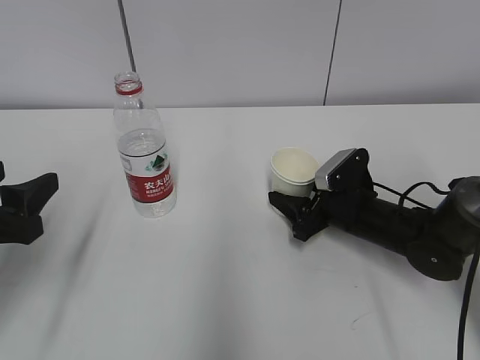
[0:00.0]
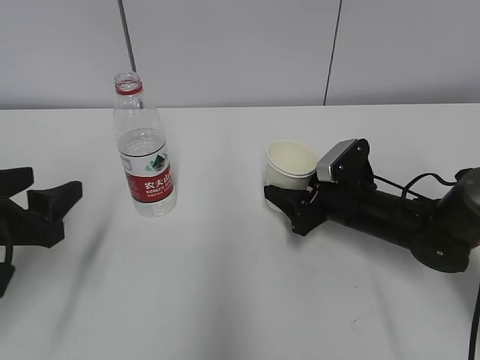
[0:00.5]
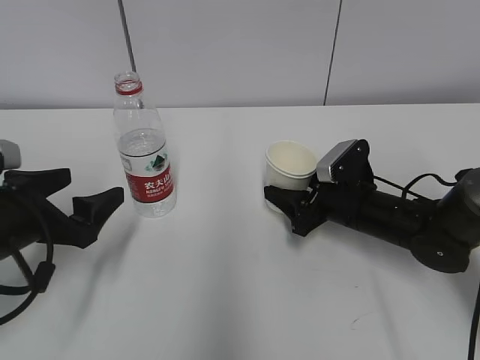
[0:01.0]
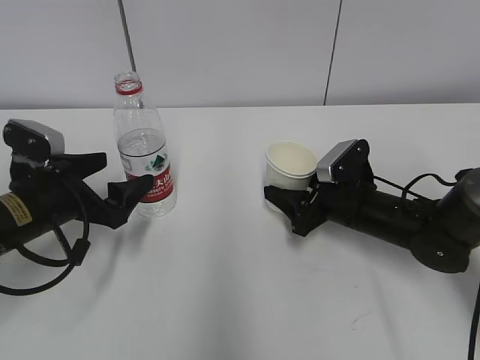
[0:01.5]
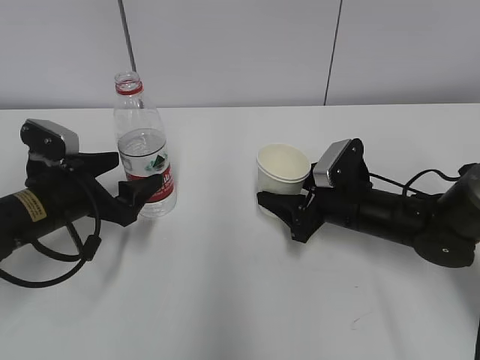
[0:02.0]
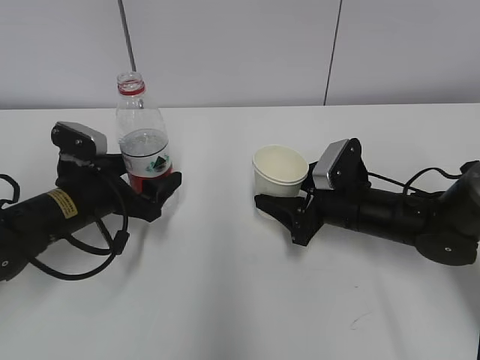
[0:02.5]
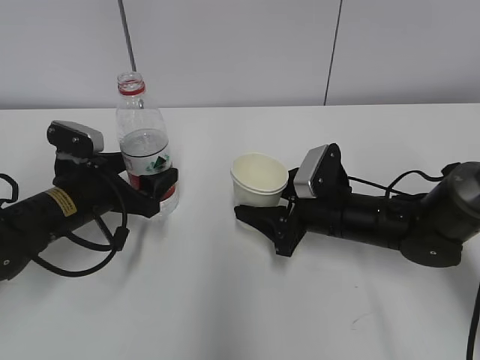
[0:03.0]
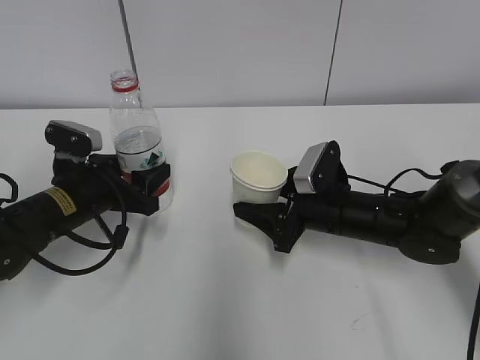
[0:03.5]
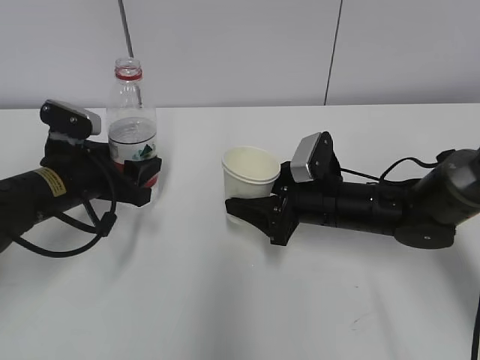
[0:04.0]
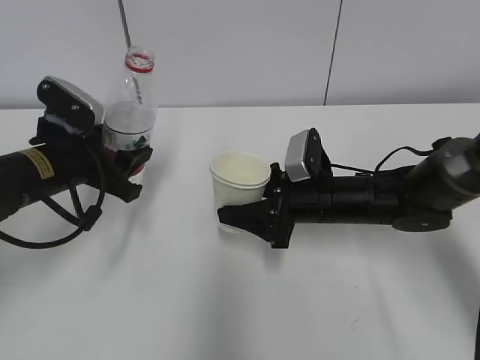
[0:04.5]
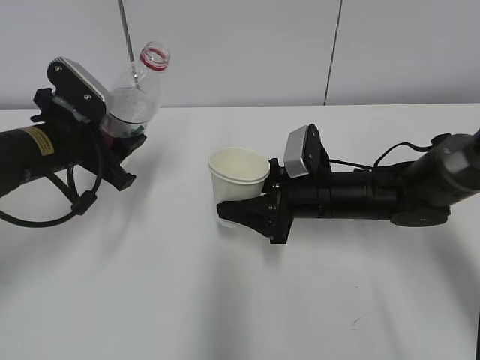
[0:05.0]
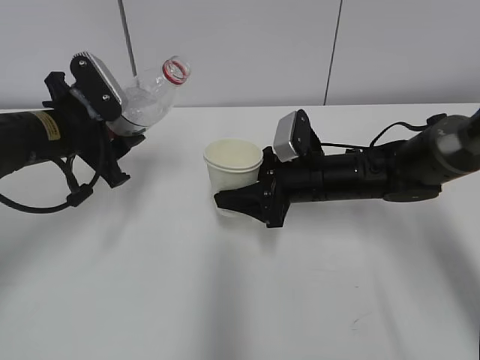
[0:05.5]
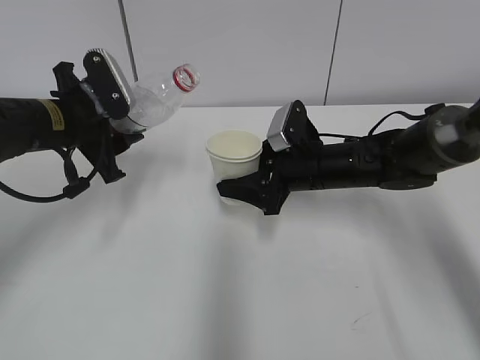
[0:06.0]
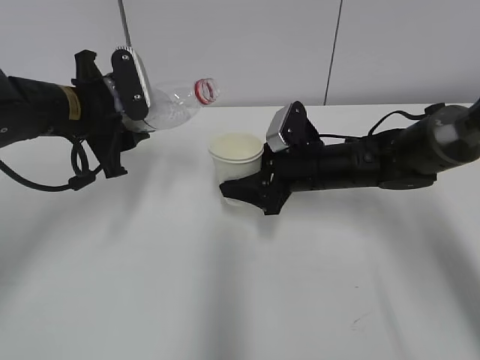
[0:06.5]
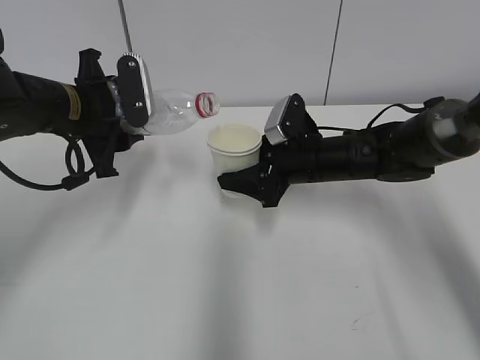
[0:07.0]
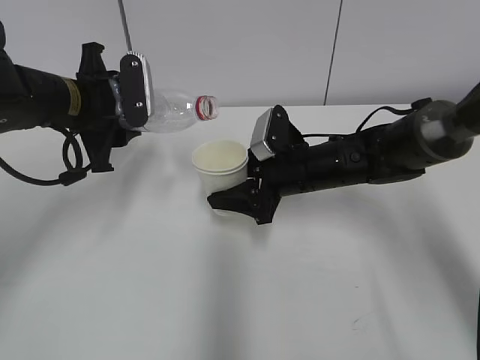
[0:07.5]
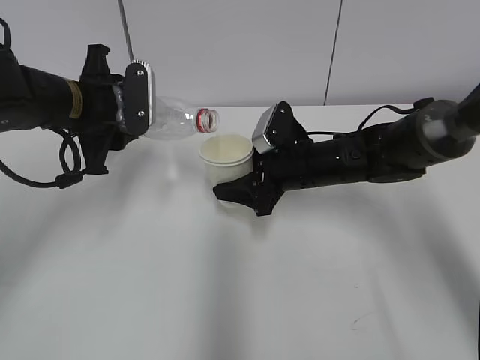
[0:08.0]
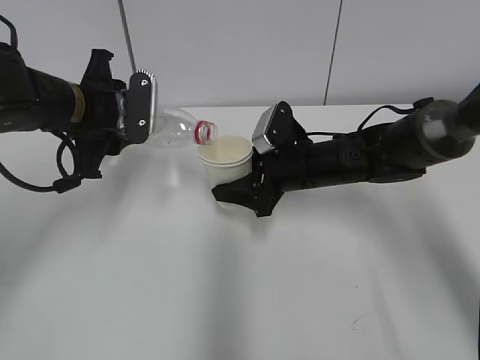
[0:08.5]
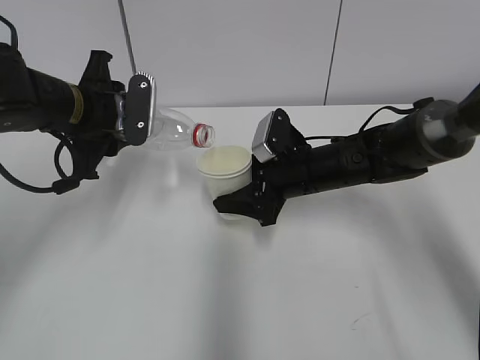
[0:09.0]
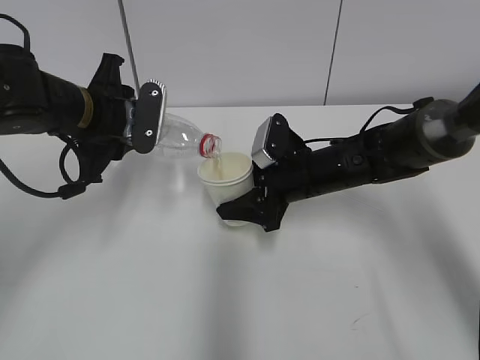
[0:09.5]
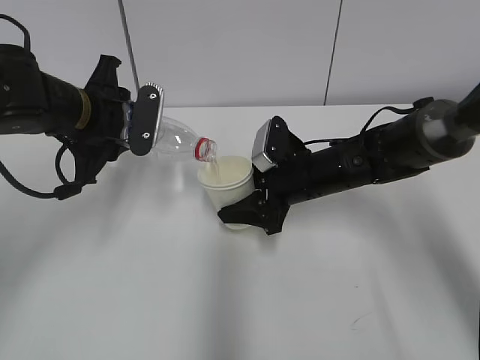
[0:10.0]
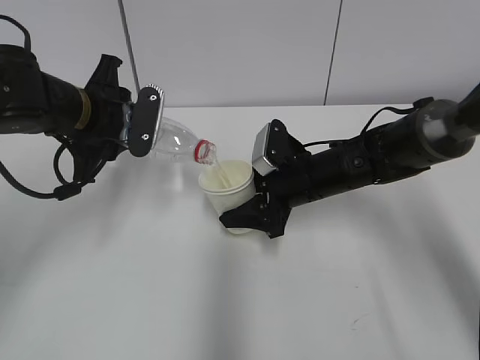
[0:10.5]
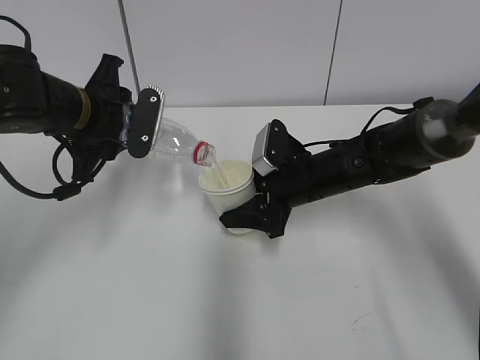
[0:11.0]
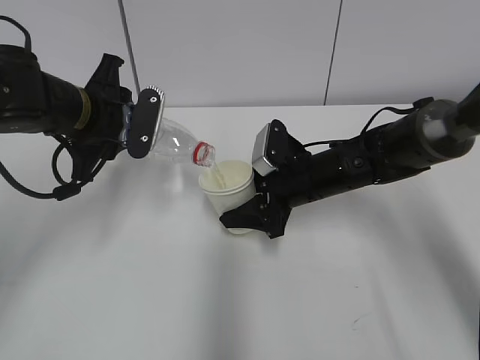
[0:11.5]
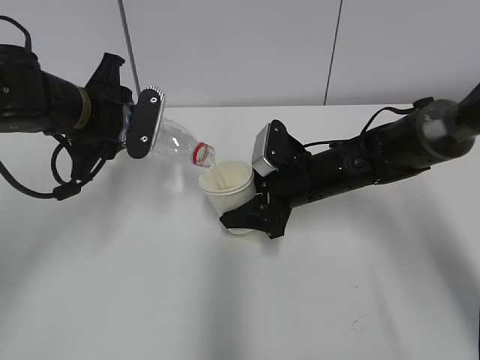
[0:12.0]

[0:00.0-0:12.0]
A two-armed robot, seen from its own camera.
Step, 0:01.5 to 0:05.5: Lift the paper cup with the right hand.
Step, 0:06.0 to 0:09.5: Fill water with the right hand.
Step, 0:06.0 to 0:09.5: Pour water with the left hand.
Step, 0:10.0 to 0:11.0: Collect water with the left hand.
0:00.0 to 0:02.0: The left gripper moves forward and downward, roughly 15 cm, and opens.
0:02.0 to 0:04.0: The left gripper closes.
0:04.0 to 0:06.0: The right gripper moves about 5 cm. The left gripper heads upward, covering roughly 5 cm.
0:08.0 to 0:10.0: The grippers make only small movements.
0:10.0 to 0:12.0: Both grippers stay put.

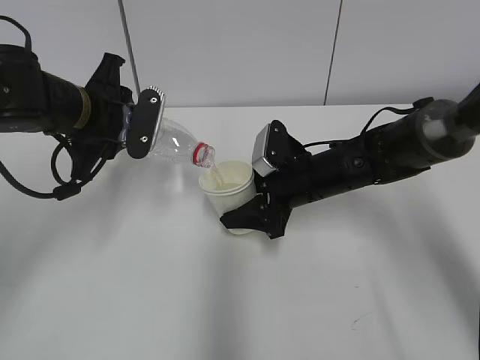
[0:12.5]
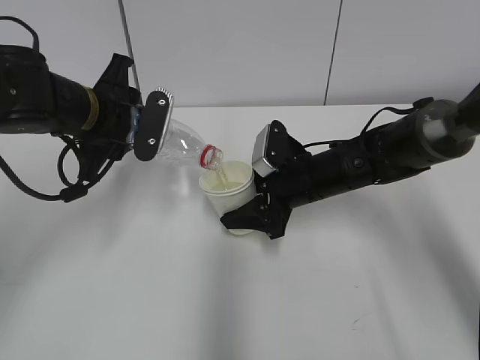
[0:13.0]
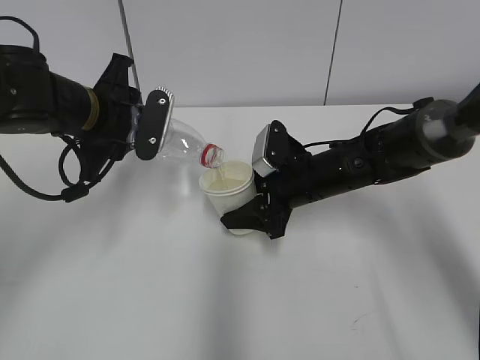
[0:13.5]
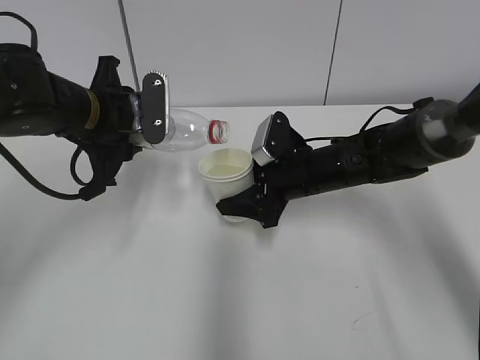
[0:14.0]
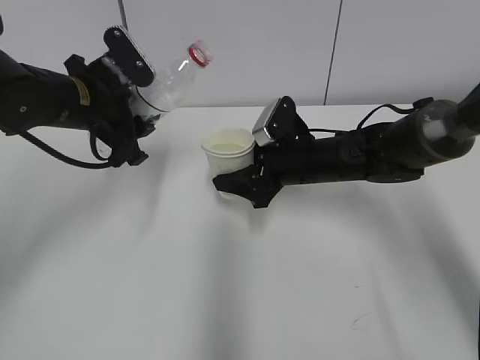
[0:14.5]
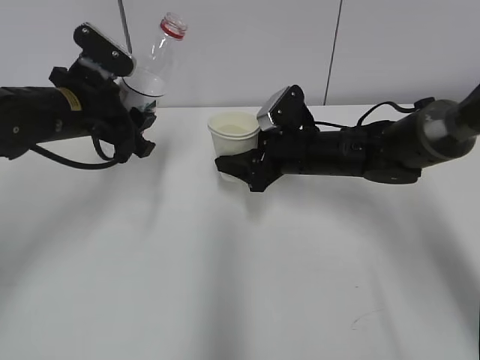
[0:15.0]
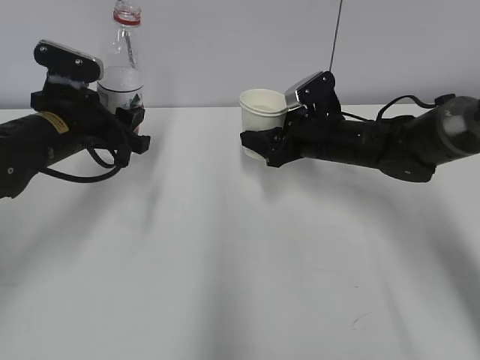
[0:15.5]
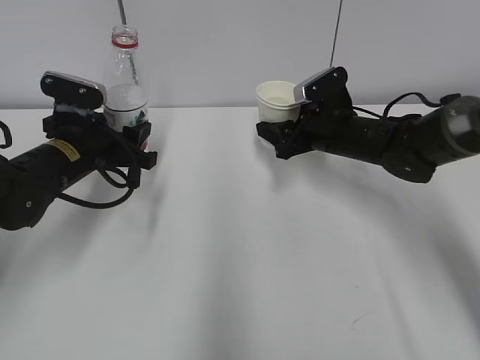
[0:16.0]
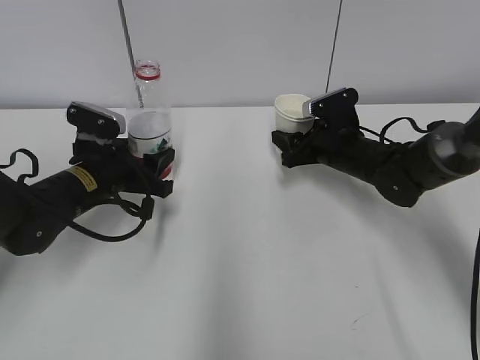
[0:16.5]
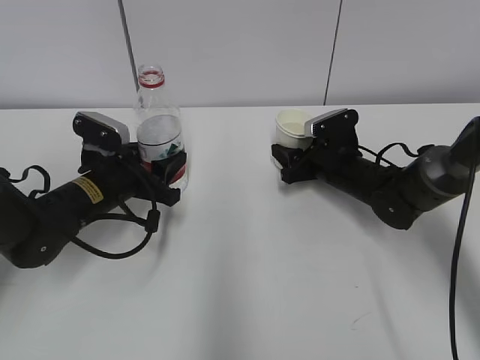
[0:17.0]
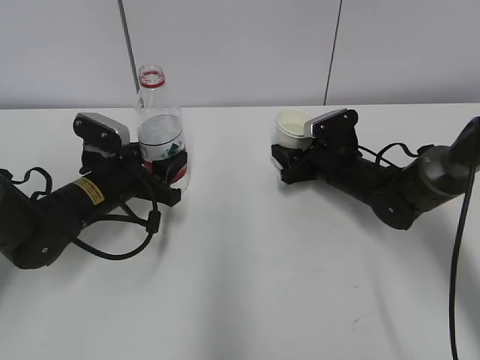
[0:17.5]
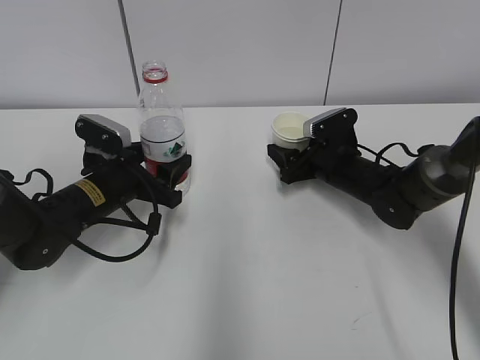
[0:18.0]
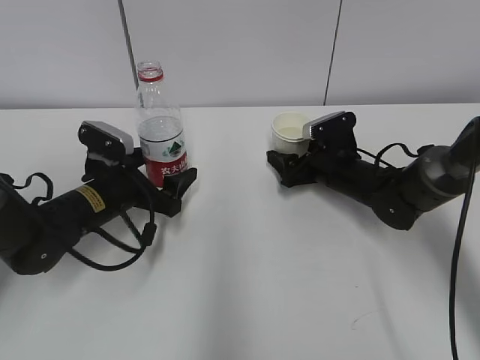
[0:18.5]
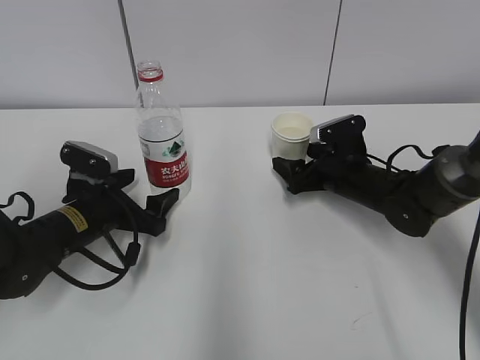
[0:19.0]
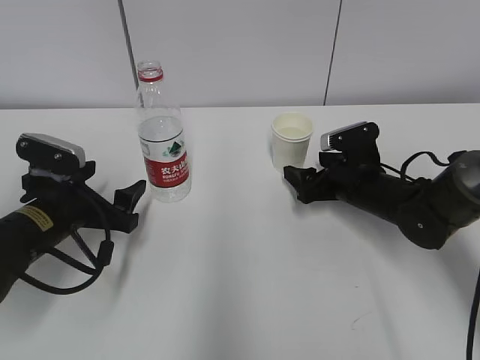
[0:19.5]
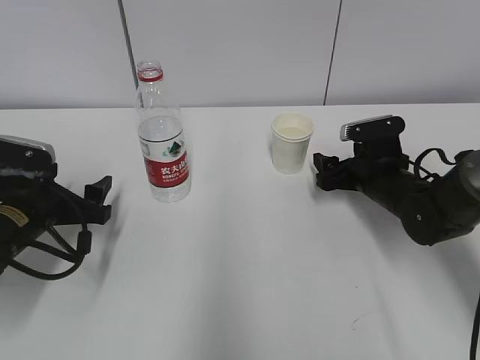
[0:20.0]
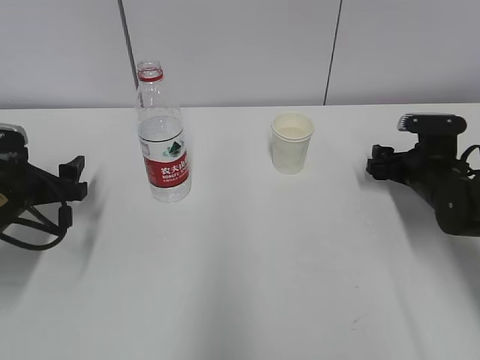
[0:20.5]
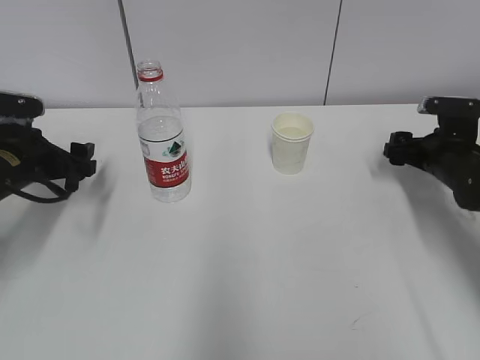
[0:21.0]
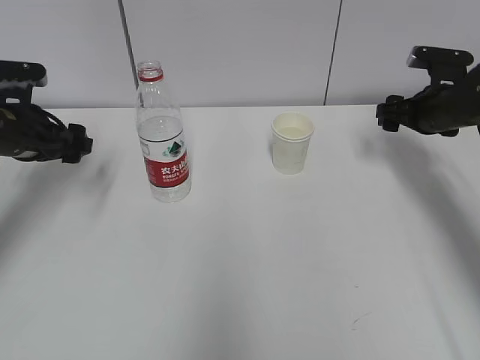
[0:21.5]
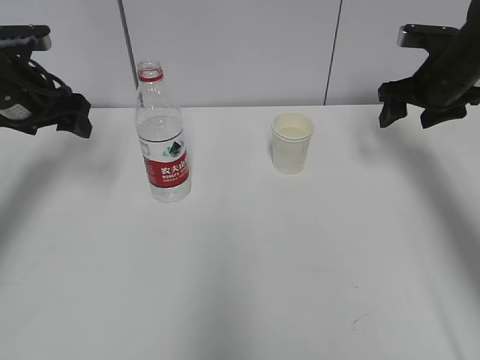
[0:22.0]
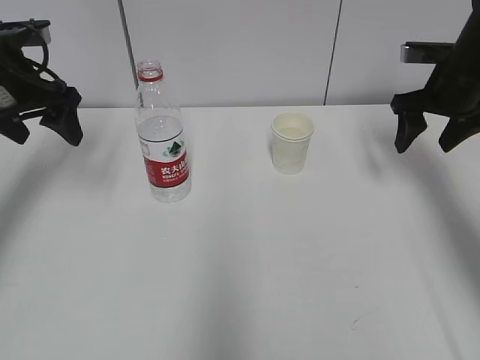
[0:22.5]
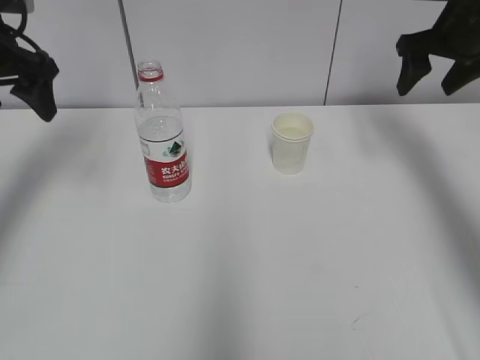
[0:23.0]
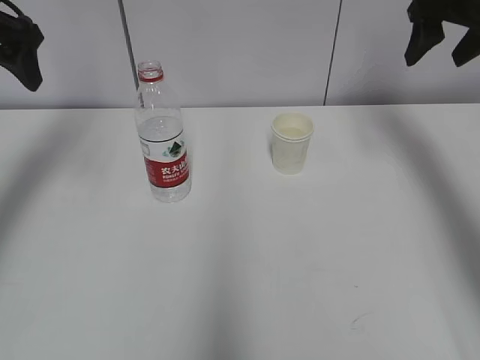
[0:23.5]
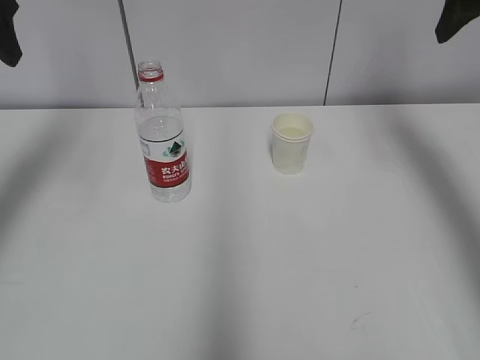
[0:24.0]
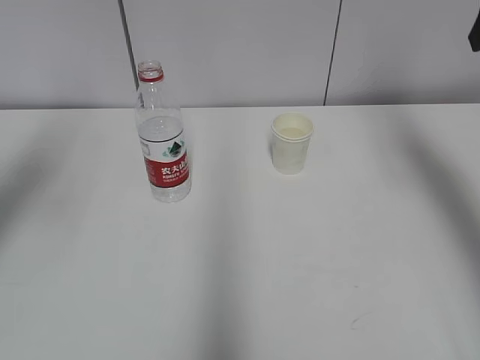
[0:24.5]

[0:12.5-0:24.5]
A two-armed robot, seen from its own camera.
0:14.5 to 0:16.5: The left gripper heads downward, covering approximately 10 cm, while the right gripper goes roughly 5 cm to the right.
0:16.5 to 0:18.5: The left gripper opens its fingers; the right gripper opens.
0:18.5 to 0:20.5: The left gripper heads to the left, covering some 10 cm. Meanwhile the right gripper shifts roughly 10 cm to the right.
0:20.5 to 0:22.5: The left gripper moves upward and forward, roughly 15 cm; the right gripper moves upward, some 15 cm, and closes.
0:22.5 to 0:24.5: The grippers both shift upward and backward by about 15 cm.

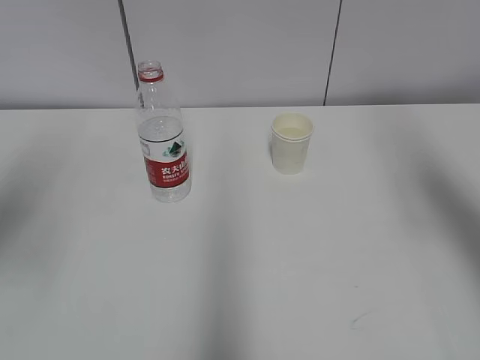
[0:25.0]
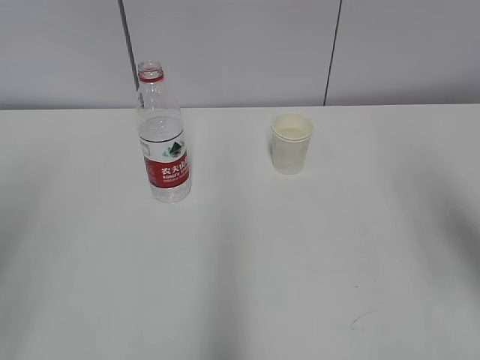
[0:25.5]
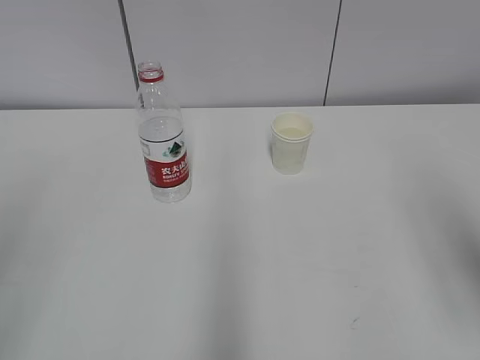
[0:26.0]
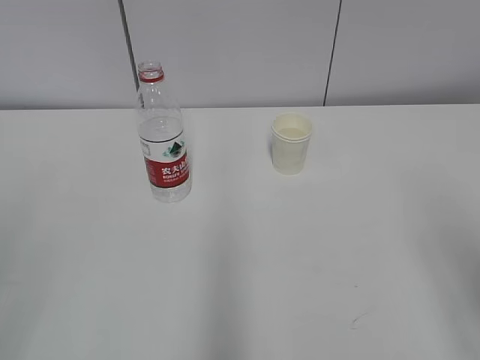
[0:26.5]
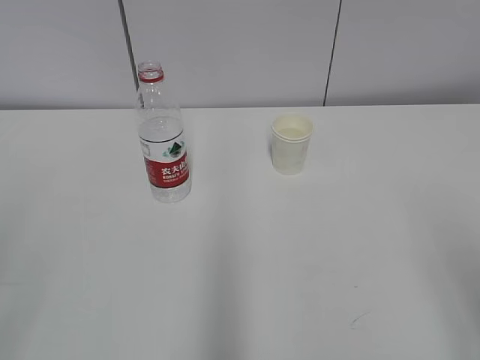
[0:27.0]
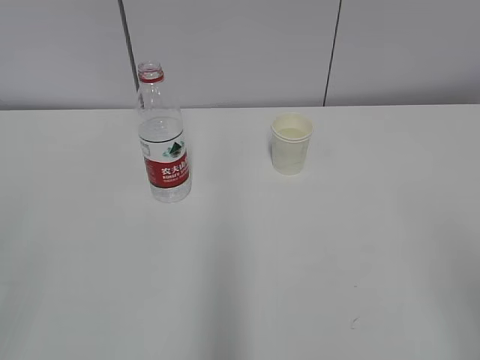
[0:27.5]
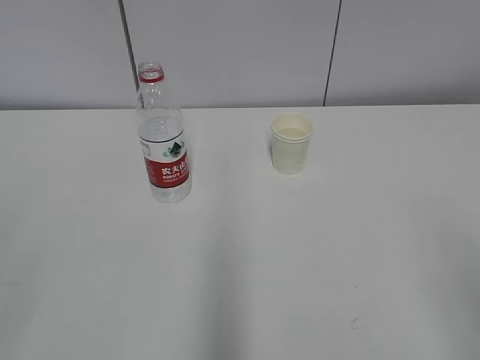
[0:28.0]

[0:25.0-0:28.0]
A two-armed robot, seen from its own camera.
0:25.0 to 0:26.5: The right gripper moves backward and downward, roughly 15 cm. Meanwhile the left gripper is displaced backward by roughly 15 cm.
